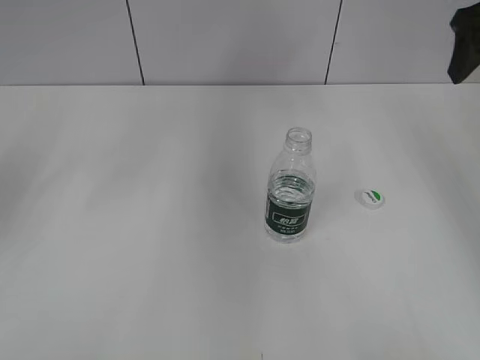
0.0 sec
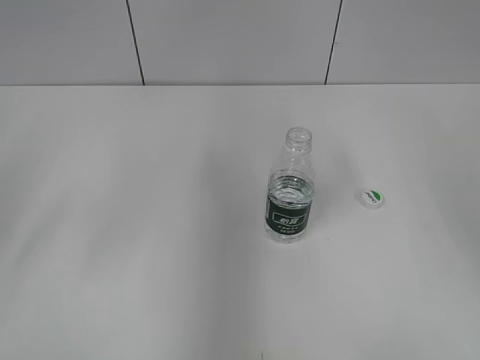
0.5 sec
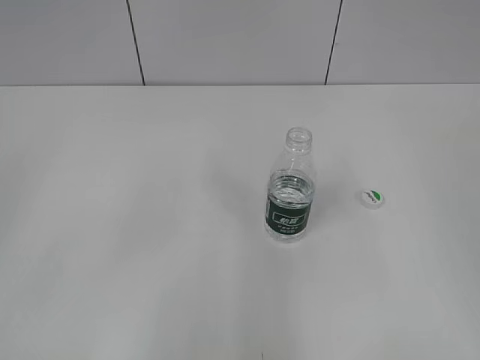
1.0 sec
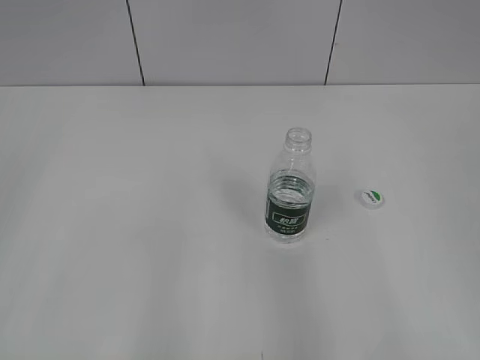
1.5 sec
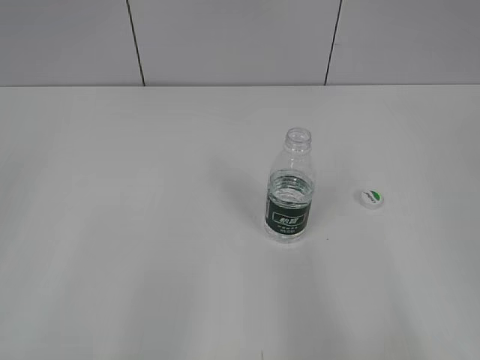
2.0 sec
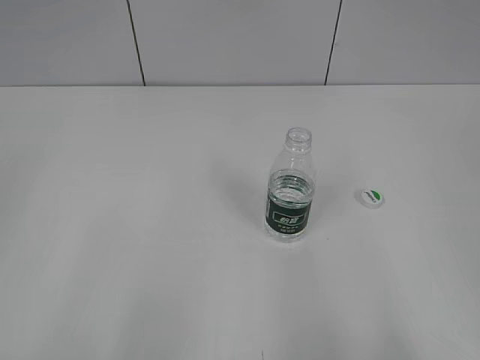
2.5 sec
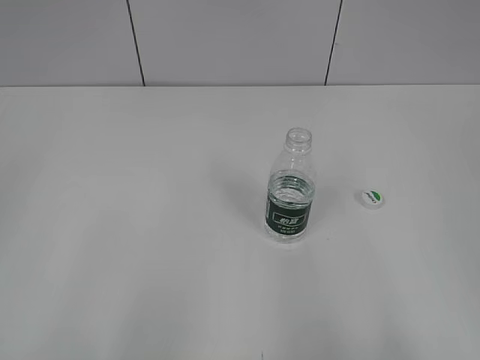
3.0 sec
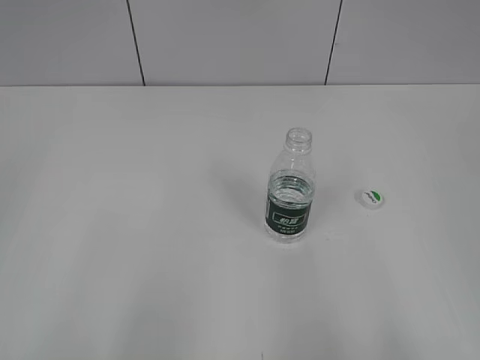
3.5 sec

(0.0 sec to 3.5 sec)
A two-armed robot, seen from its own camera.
0.0 sec - 2.0 sec: The grippers both shift backward by about 30 cm.

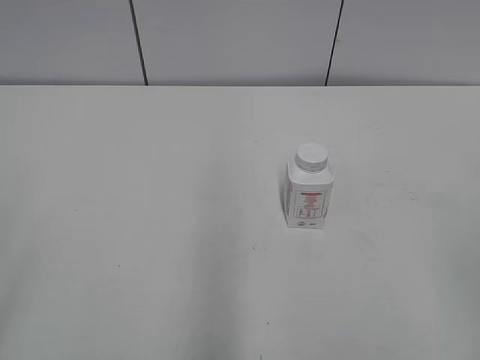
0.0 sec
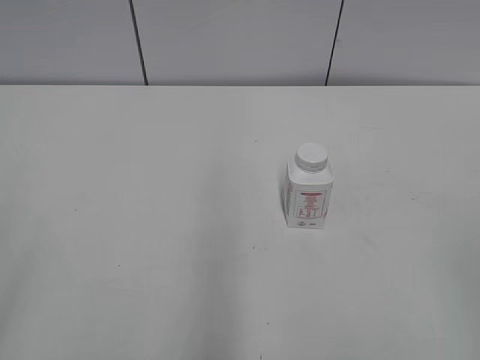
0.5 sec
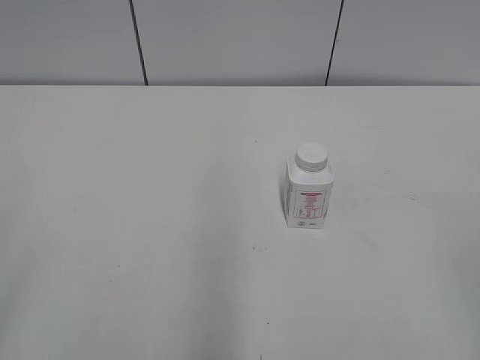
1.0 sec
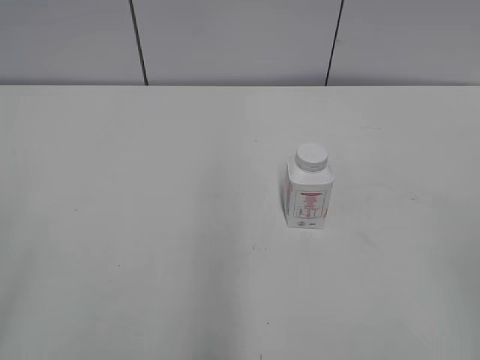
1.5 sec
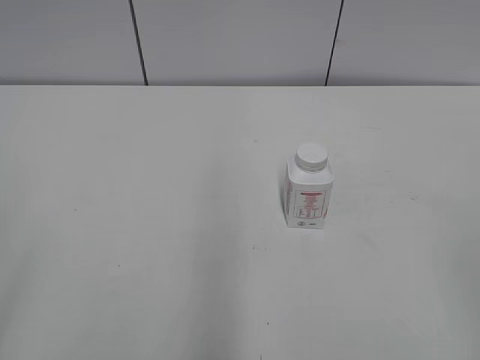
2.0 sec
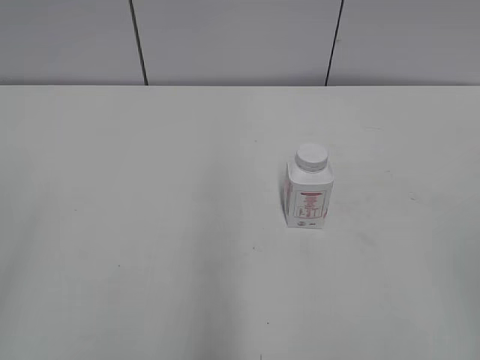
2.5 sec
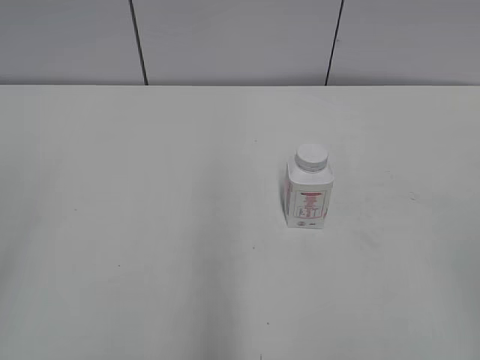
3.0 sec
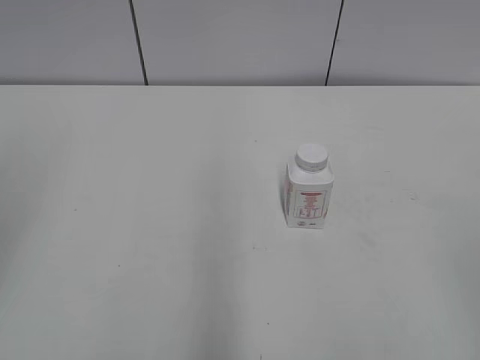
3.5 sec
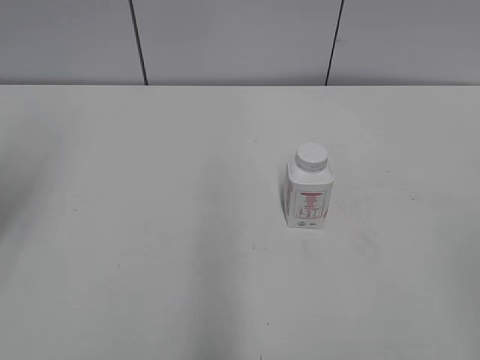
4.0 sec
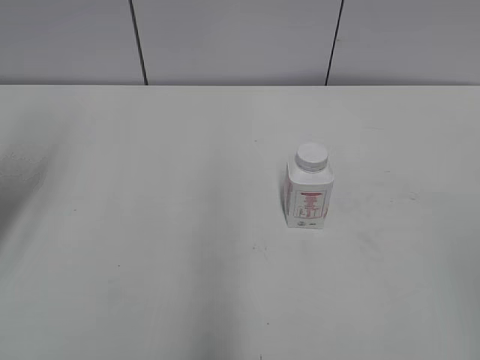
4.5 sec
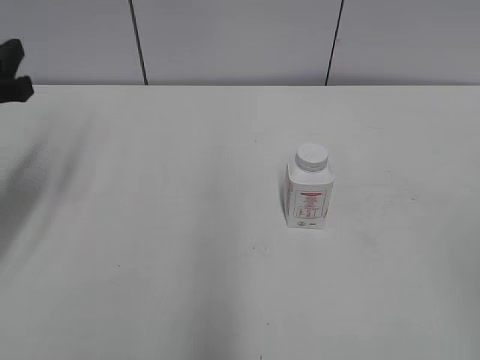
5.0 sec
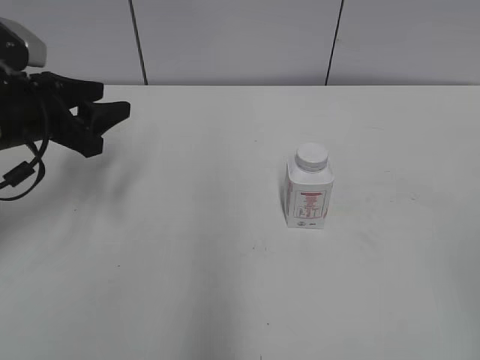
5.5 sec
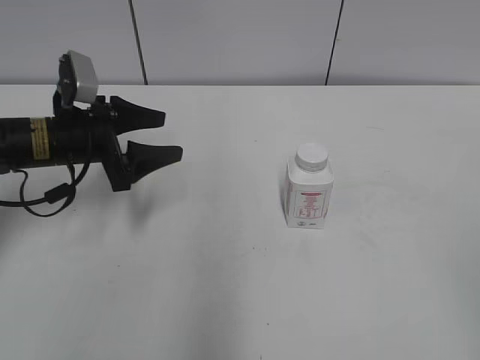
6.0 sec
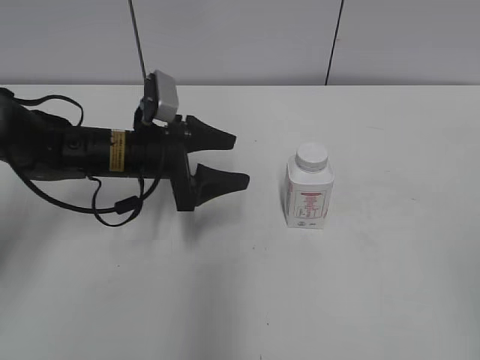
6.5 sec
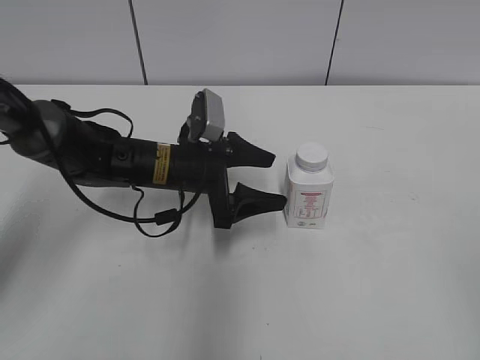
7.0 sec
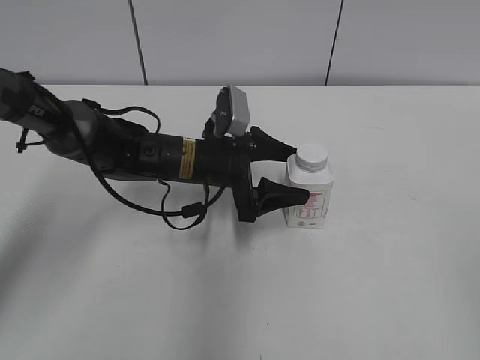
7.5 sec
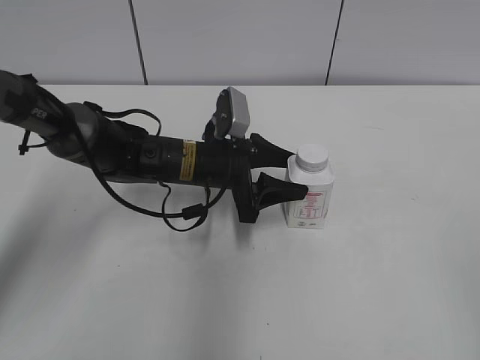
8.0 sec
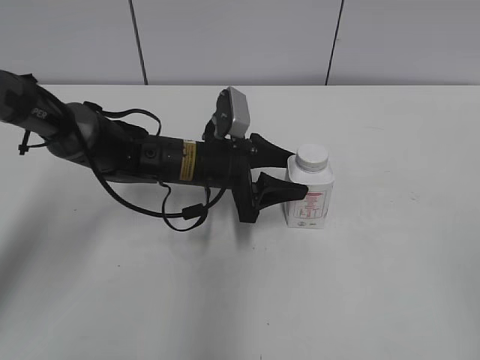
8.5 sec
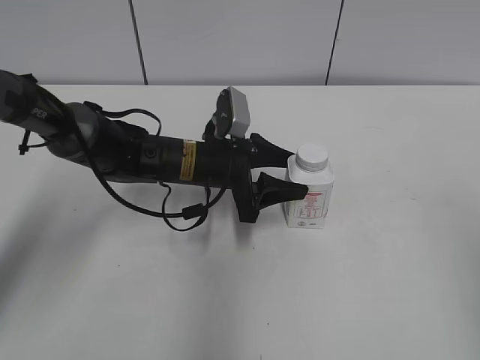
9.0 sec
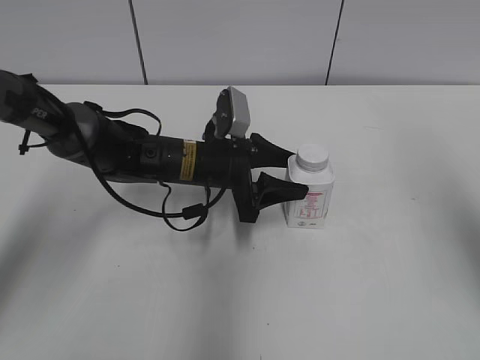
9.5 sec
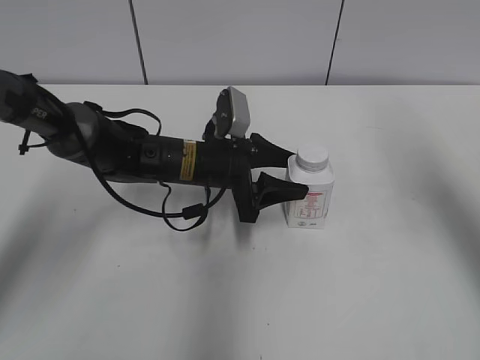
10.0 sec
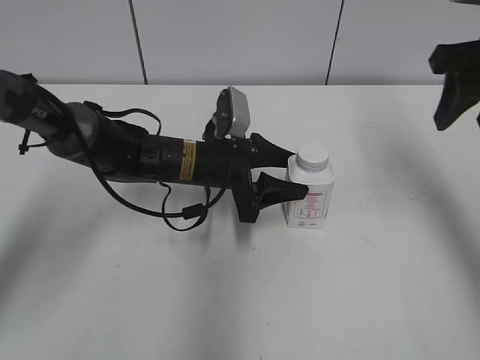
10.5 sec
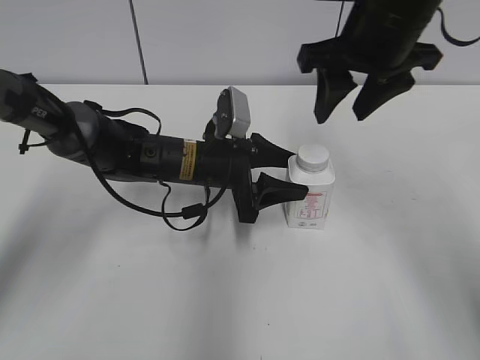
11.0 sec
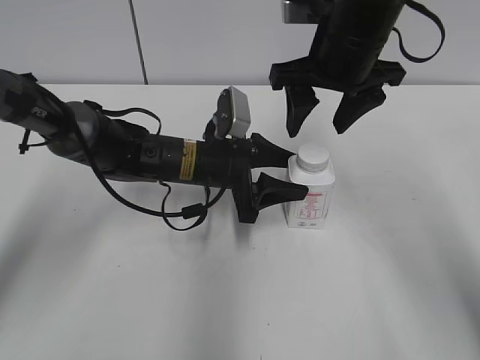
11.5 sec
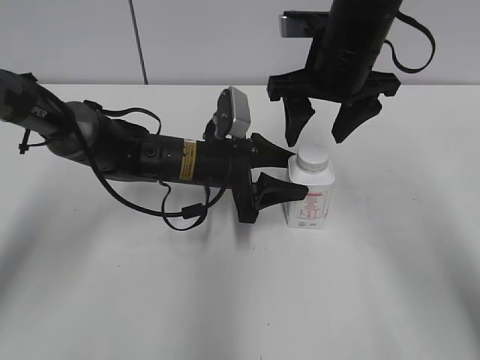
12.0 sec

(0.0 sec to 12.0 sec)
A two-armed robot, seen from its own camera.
Step, 0.0 sec - 8.5 sec: Grab the Yili Changqing with the left hand.
2.0 sec - 4.0 sec: The left gripper goes some 20 cm forward.
4.0 sec - 6.0 sec: The left gripper is displaced downward, forward and to the right by roughly 25 cm, and opens up.
6.0 sec - 8.0 sec: The left gripper moves to the right, about 15 cm, and closes its fingers.
8.0 sec - 10.0 sec: The right gripper moves forward, about 25 cm, and closes up.
10.0 sec - 12.0 sec: The right gripper shifts approximately 20 cm to the left, forward and downward, and opens up.

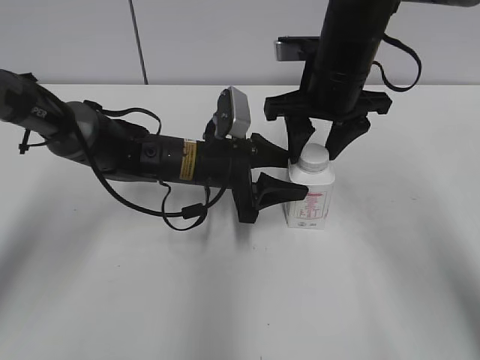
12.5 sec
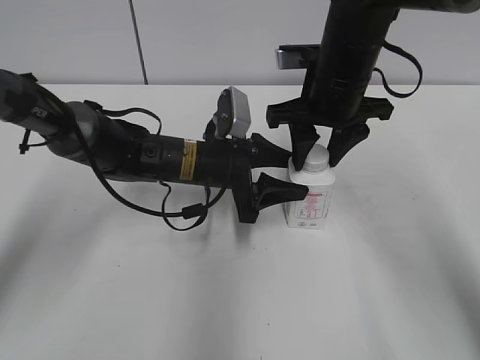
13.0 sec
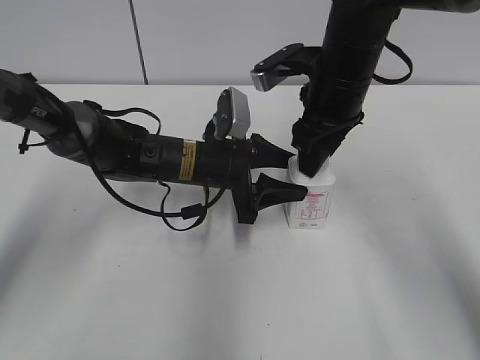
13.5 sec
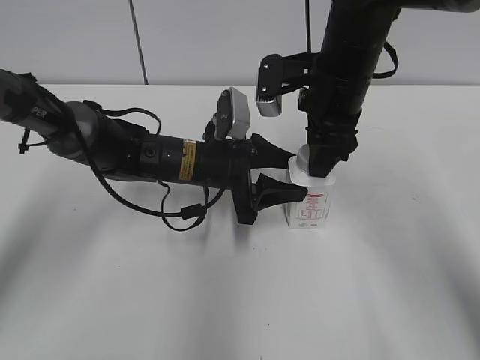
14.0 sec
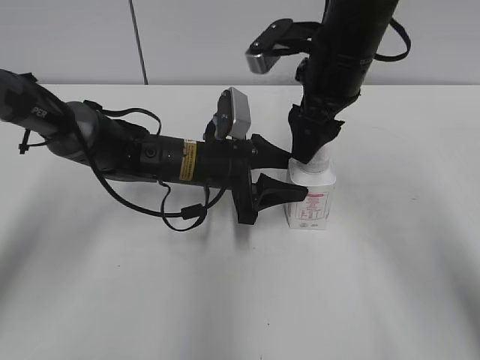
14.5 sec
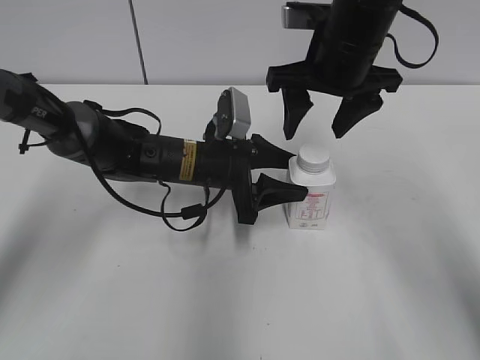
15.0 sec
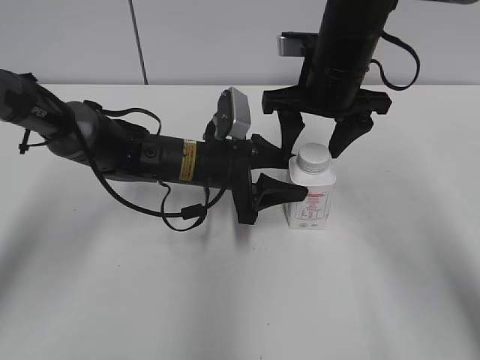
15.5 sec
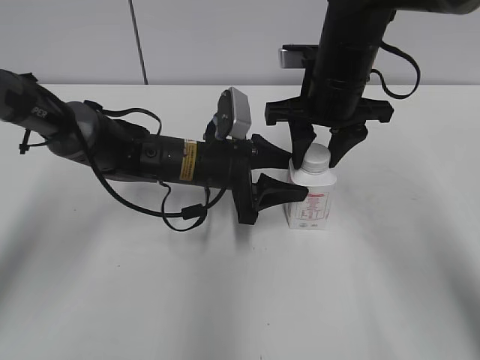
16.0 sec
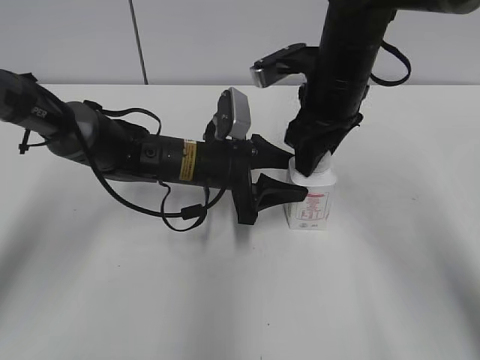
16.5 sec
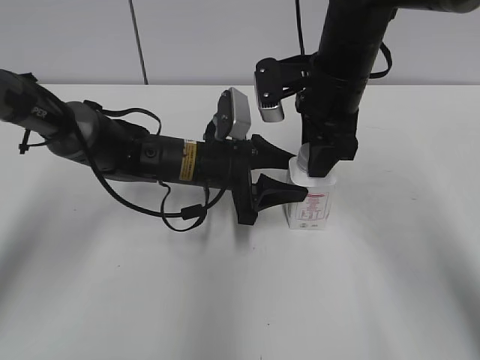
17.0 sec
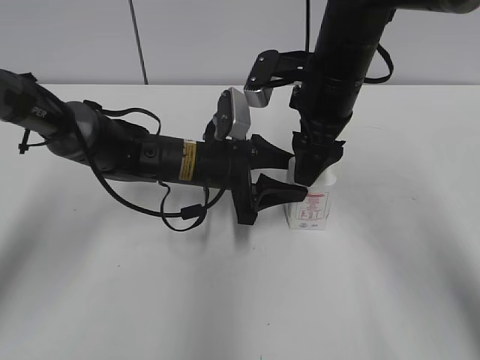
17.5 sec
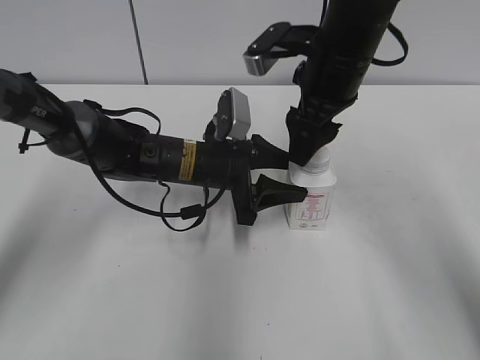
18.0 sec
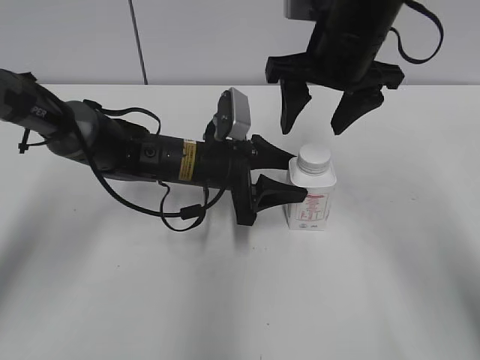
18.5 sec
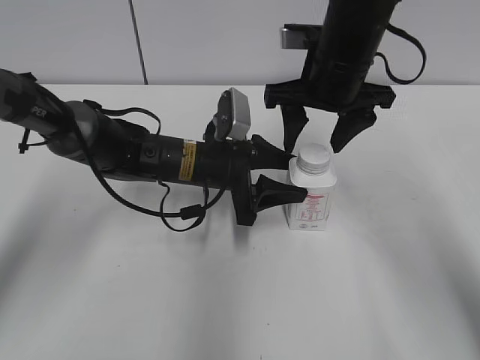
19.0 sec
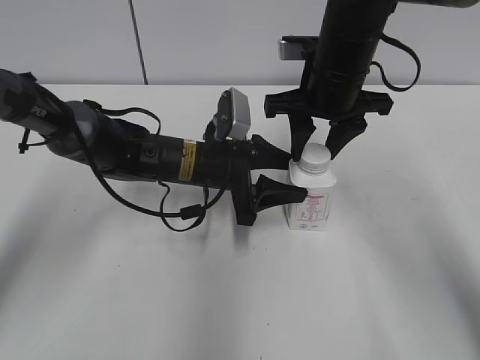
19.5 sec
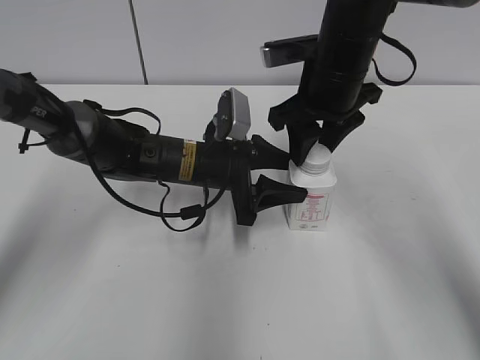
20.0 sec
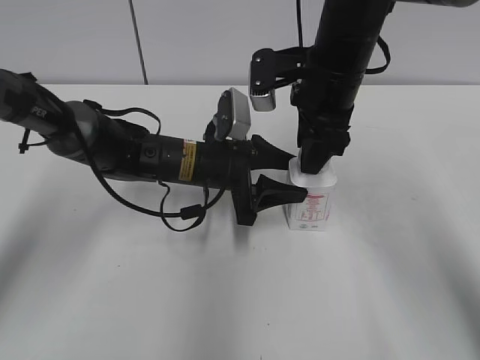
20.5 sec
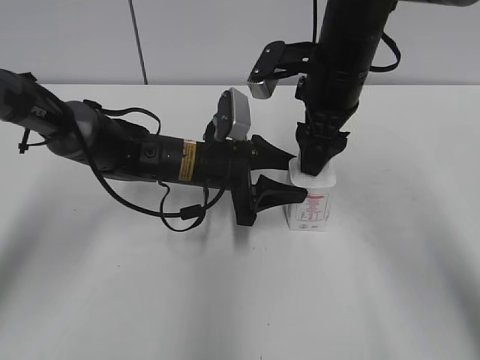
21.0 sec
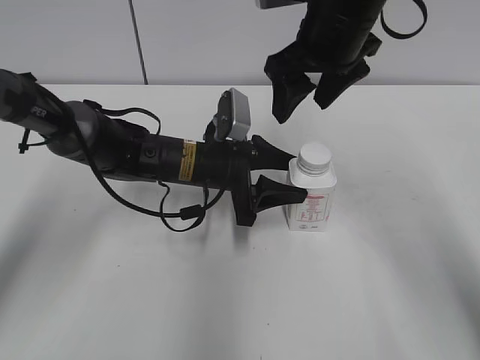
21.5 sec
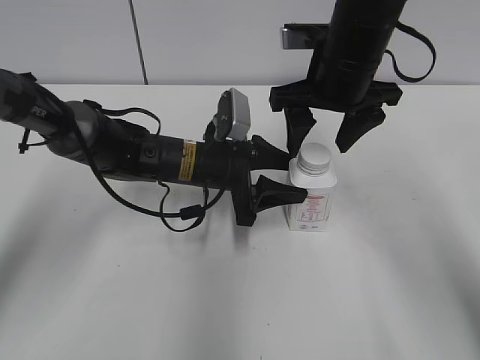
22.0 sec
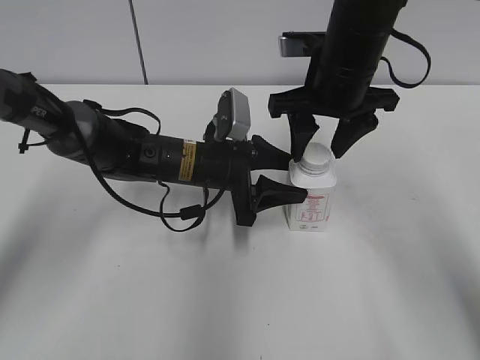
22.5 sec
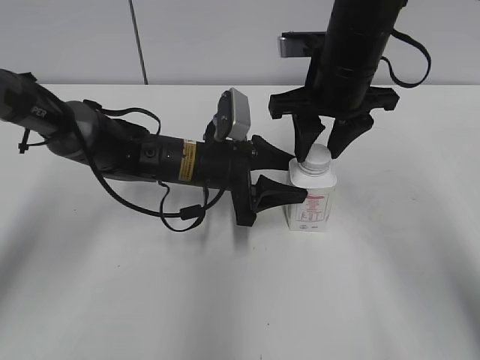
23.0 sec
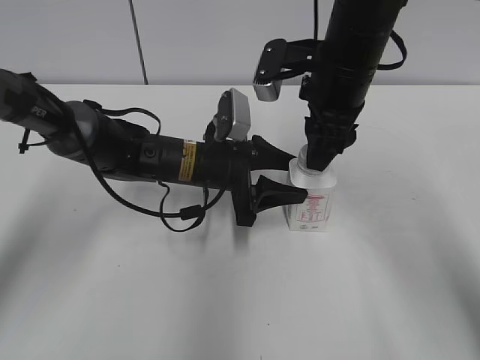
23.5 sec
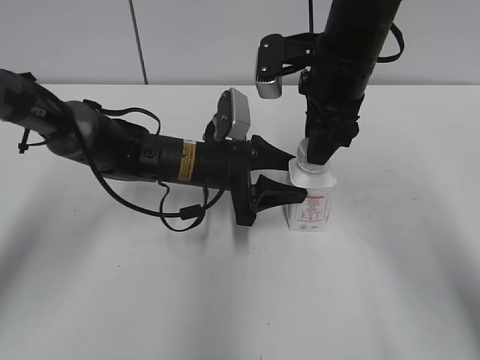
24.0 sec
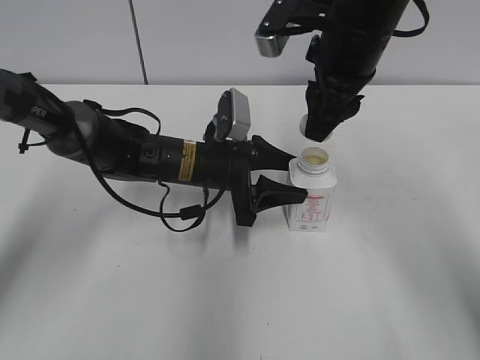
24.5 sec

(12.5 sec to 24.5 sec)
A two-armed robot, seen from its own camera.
12.5 sec - 14.5 sec: The right gripper opens up.
14.5 sec - 16.5 sec: The right gripper closes up.
16.5 sec - 18.5 sec: The right gripper shifts about 5 cm upward, and opens.
18.5 sec - 20.5 sec: The right gripper closes its fingers.
20.5 sec - 22.5 sec: The right gripper opens up.
22.5 sec - 24.5 sec: The right gripper closes.
